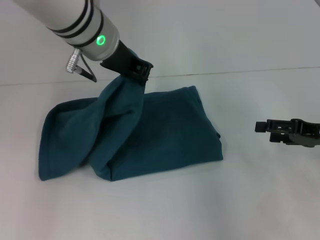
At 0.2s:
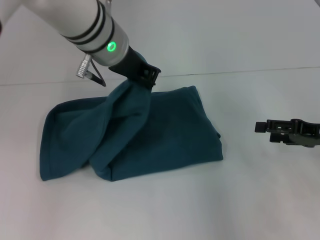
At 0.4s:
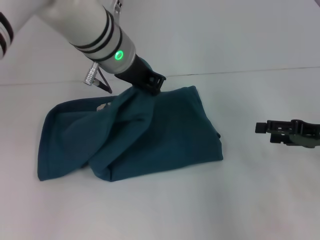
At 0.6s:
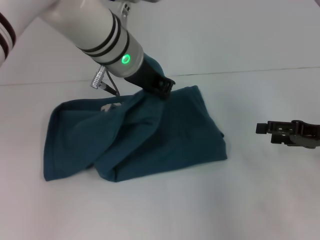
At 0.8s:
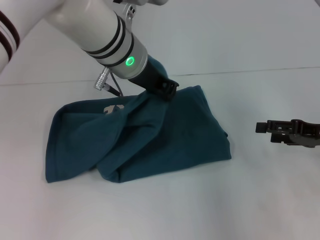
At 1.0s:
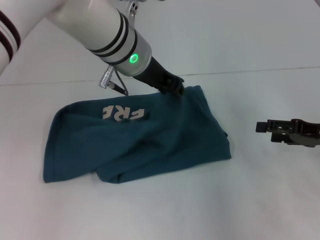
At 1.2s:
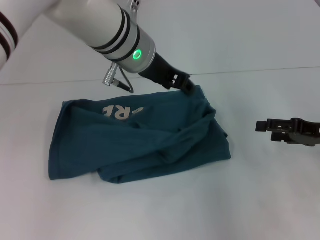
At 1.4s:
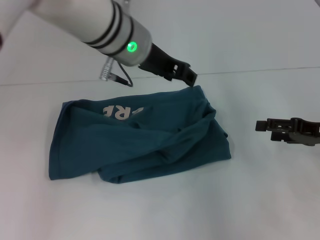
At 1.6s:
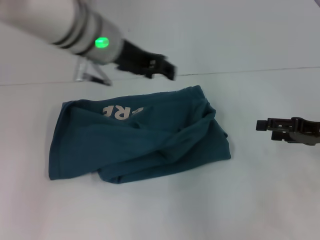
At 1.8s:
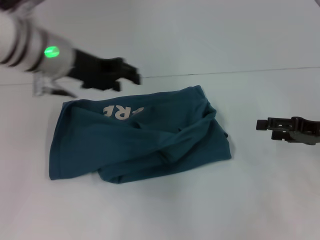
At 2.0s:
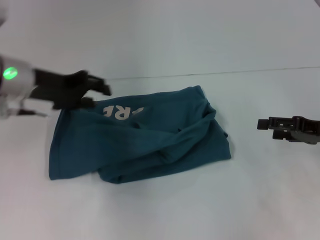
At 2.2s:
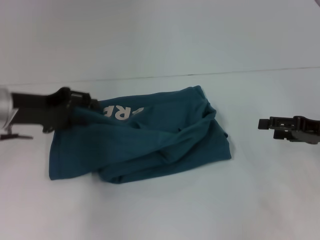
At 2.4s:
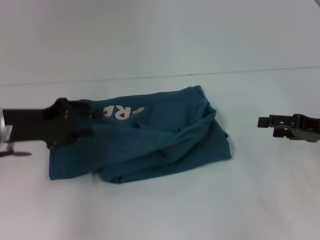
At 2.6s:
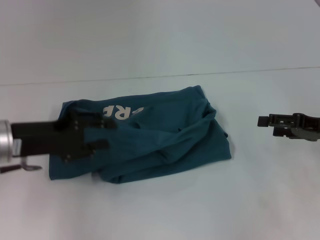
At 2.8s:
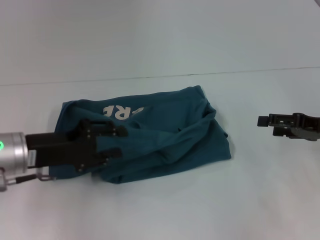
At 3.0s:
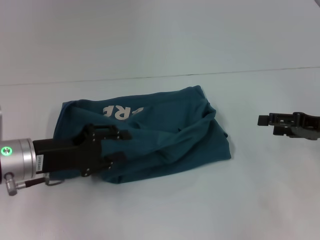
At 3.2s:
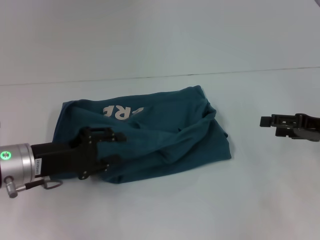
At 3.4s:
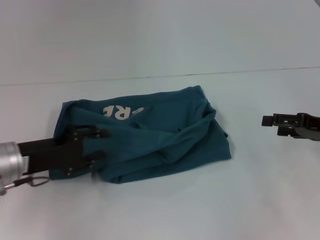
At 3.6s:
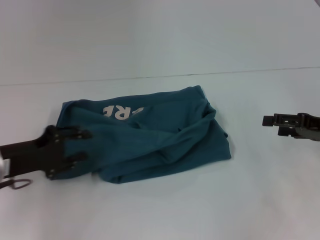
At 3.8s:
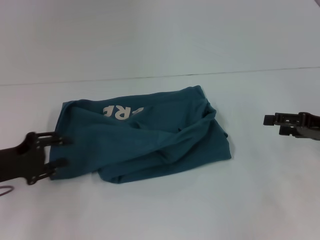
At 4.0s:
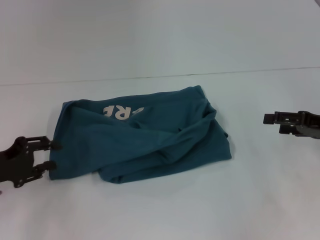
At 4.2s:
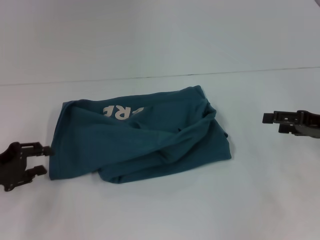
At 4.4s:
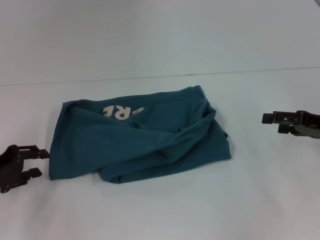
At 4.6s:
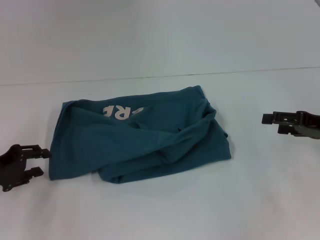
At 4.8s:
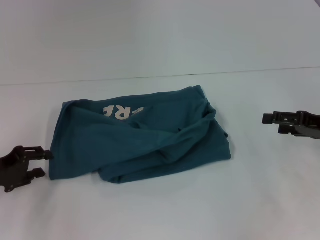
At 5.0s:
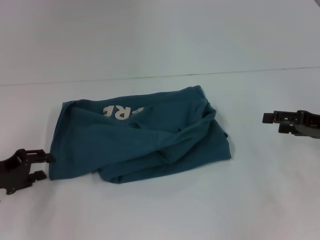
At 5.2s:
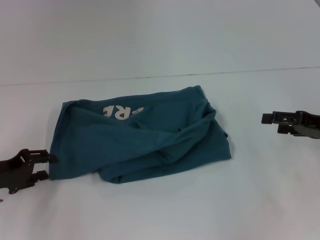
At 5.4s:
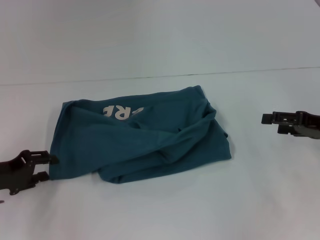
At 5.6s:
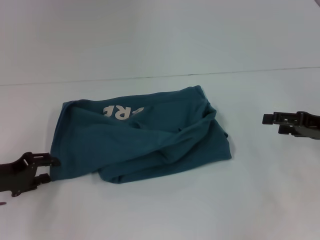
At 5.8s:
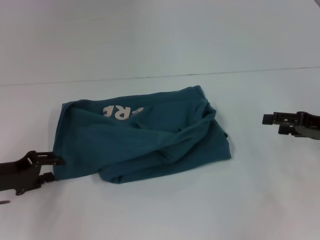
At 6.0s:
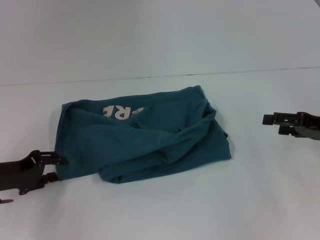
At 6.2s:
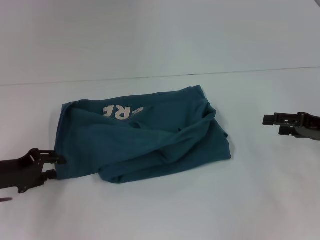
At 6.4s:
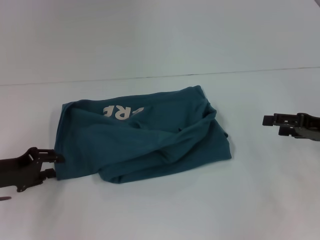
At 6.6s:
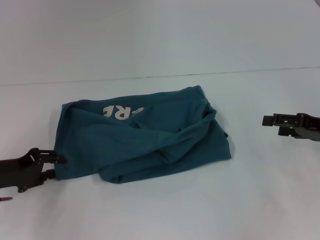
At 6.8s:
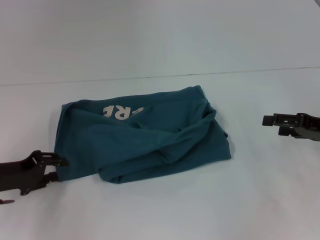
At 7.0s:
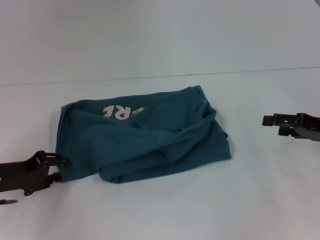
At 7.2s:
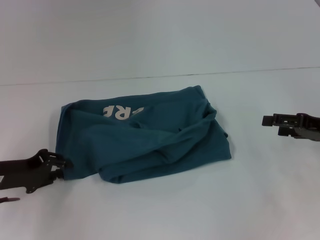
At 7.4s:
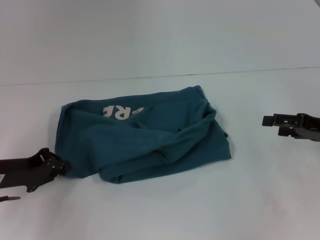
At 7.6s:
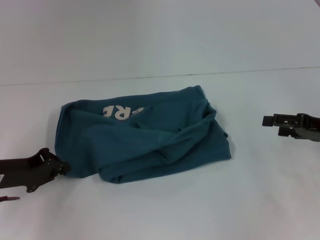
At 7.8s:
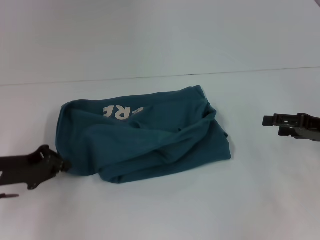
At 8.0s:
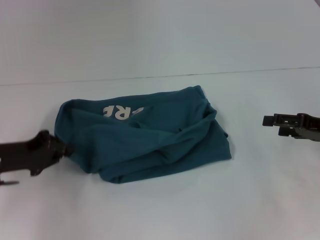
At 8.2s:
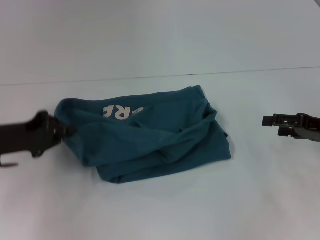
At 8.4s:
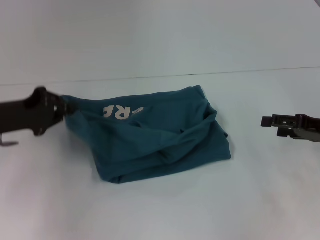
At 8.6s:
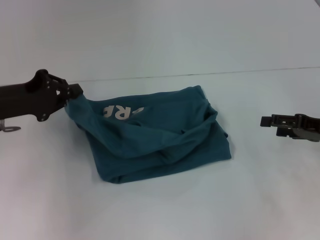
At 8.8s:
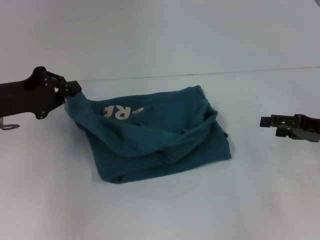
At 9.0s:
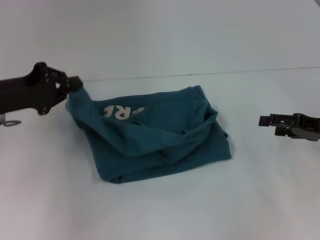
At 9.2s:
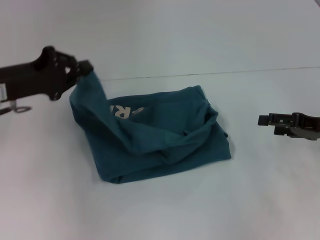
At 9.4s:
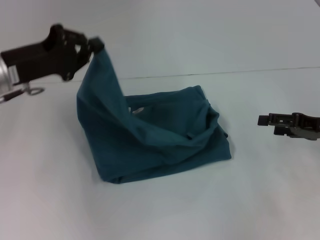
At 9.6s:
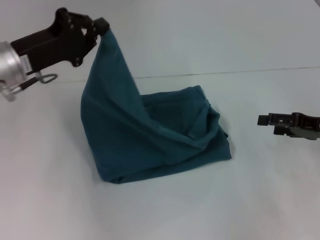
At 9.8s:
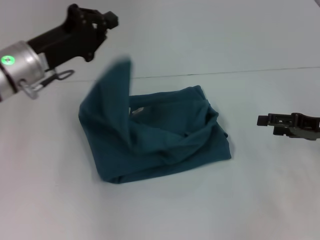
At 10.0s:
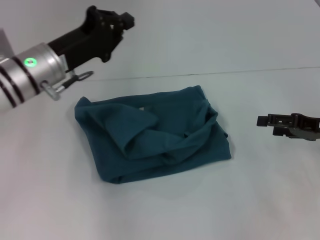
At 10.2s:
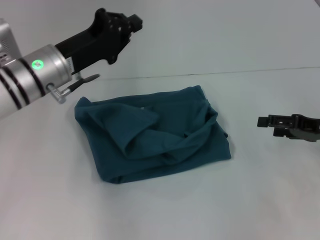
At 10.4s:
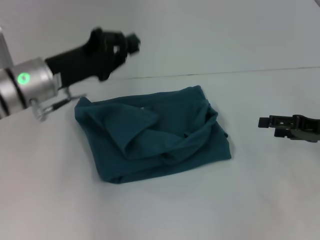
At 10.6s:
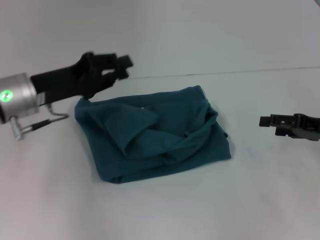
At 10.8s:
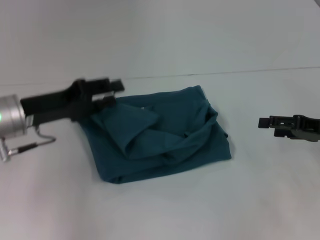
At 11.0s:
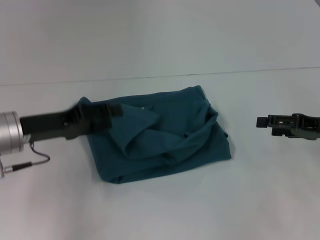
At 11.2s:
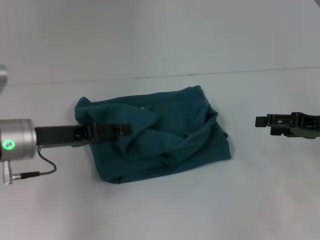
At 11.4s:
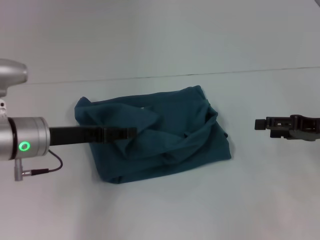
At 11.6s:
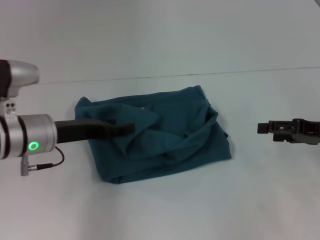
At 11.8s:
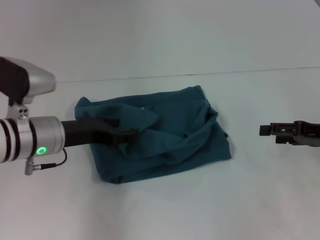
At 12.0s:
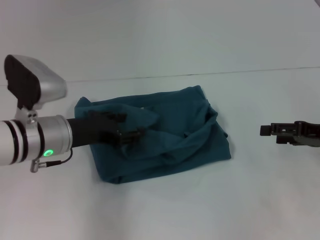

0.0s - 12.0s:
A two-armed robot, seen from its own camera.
0.0s - 1.6s: The left gripper opens its fingers.
1.6s - 3.0s: The left gripper heads downward, to the left and backward, covering some 20 cm.
3.0s - 4.4s: The left gripper heads to the left, covering approximately 10 cm.
4.4s - 6.0s: There are only small adjustments of the grippers.
6.0s - 7.6s: The left gripper closes up.
7.6s - 9.0s: The left gripper goes roughly 10 cm upward.
9.0s - 10.4s: The left gripper goes roughly 10 cm to the right.
10.4s - 12.0s: The left gripper changes place by roughly 5 cm, and opens.

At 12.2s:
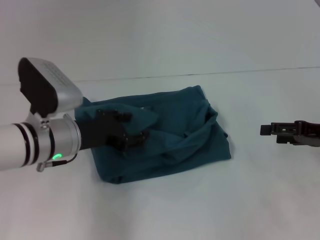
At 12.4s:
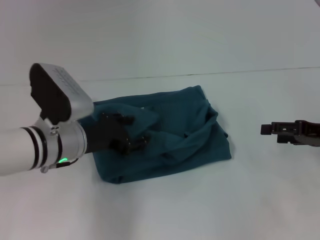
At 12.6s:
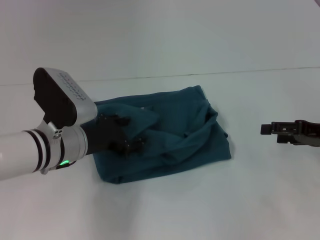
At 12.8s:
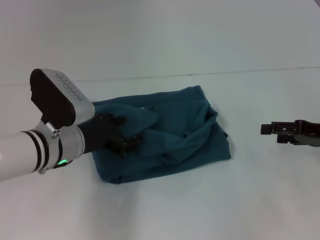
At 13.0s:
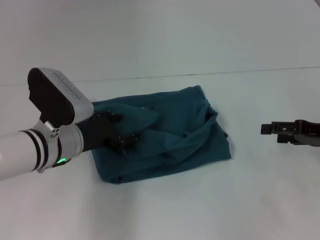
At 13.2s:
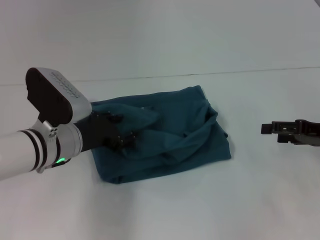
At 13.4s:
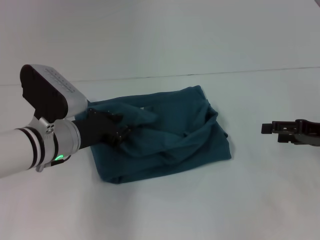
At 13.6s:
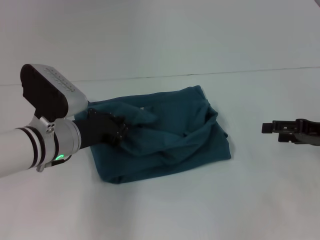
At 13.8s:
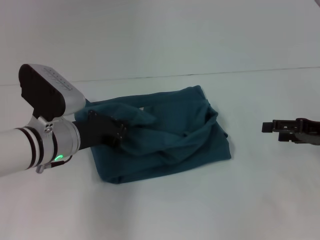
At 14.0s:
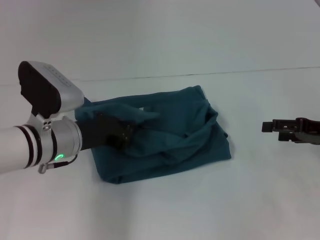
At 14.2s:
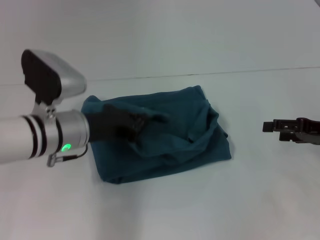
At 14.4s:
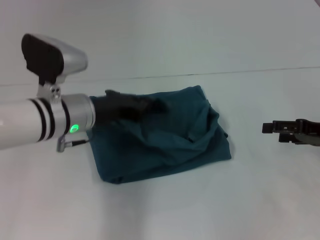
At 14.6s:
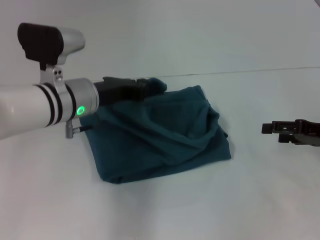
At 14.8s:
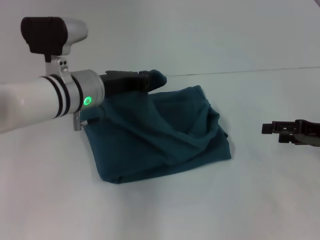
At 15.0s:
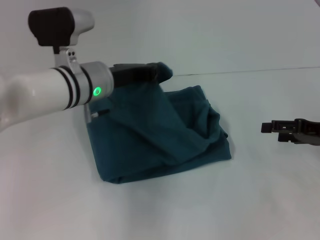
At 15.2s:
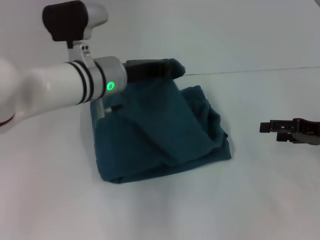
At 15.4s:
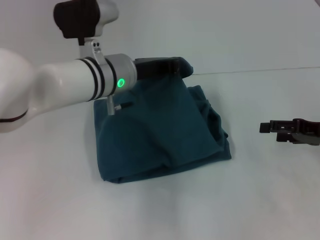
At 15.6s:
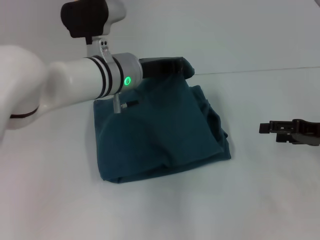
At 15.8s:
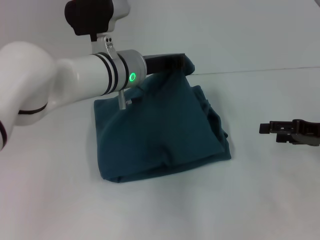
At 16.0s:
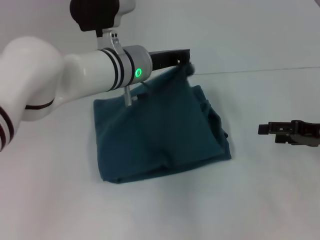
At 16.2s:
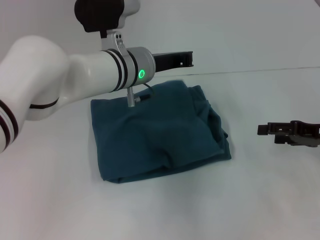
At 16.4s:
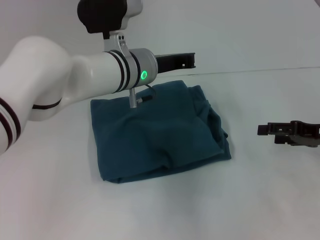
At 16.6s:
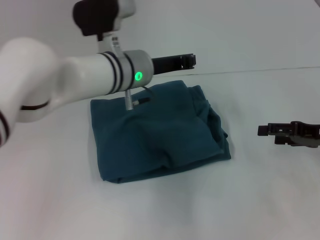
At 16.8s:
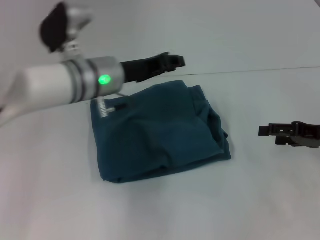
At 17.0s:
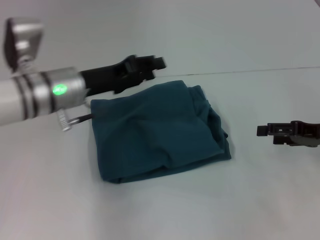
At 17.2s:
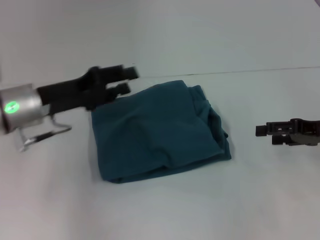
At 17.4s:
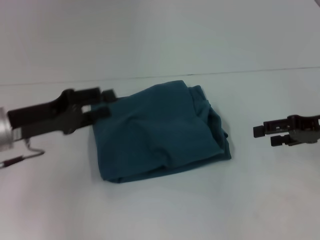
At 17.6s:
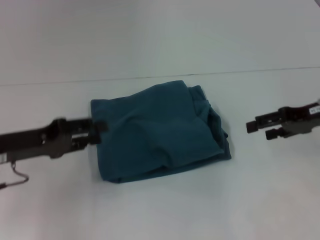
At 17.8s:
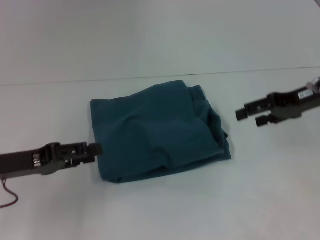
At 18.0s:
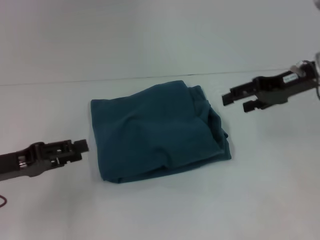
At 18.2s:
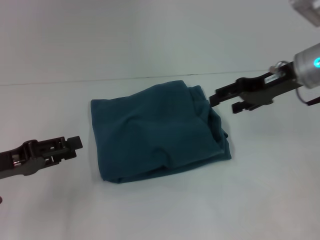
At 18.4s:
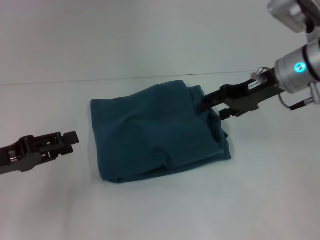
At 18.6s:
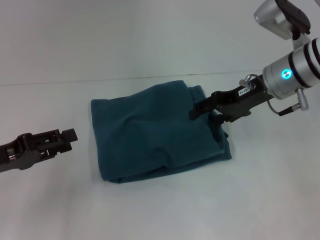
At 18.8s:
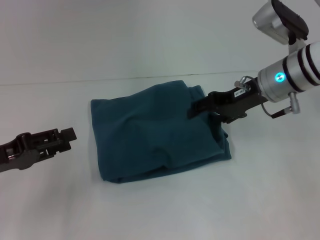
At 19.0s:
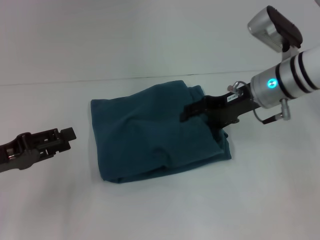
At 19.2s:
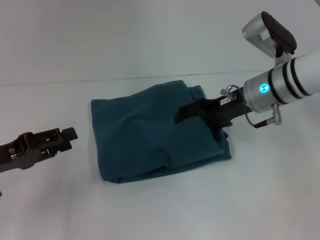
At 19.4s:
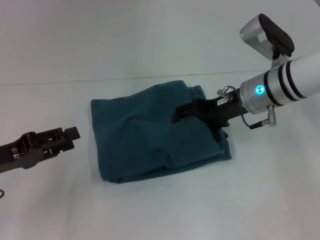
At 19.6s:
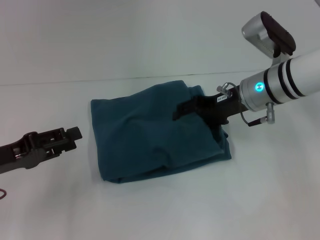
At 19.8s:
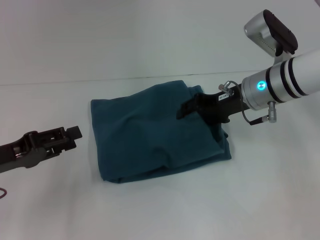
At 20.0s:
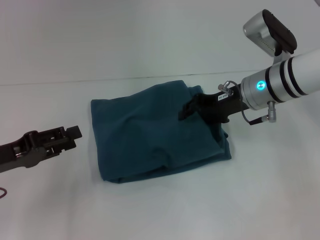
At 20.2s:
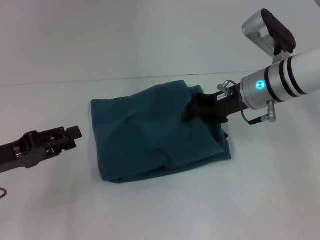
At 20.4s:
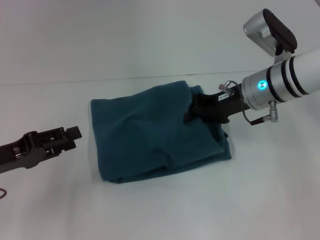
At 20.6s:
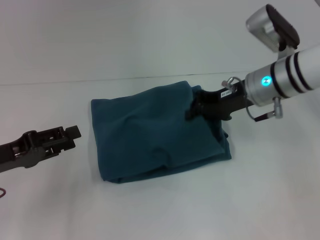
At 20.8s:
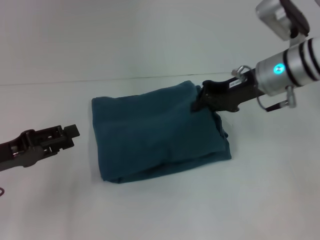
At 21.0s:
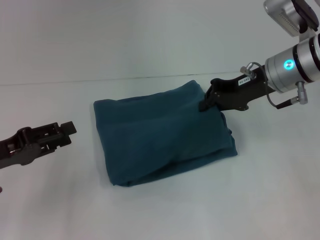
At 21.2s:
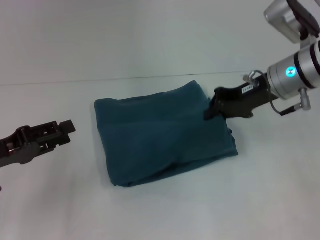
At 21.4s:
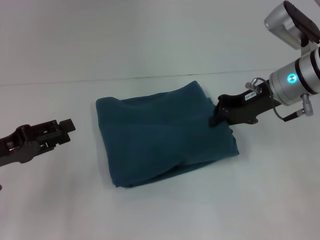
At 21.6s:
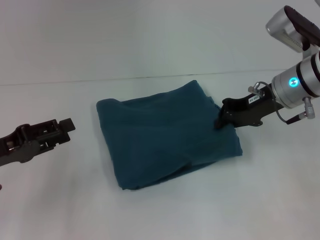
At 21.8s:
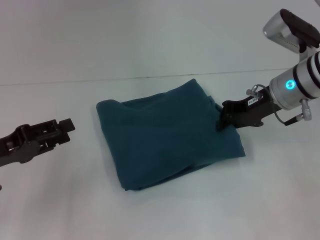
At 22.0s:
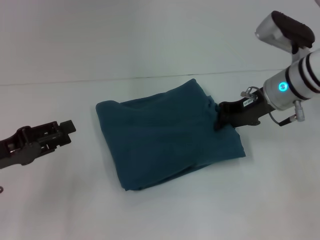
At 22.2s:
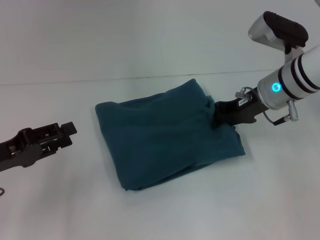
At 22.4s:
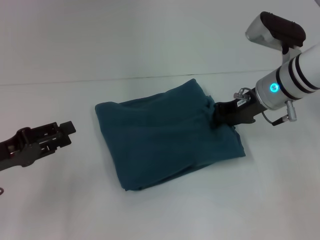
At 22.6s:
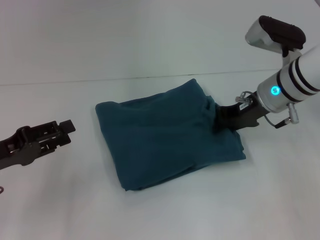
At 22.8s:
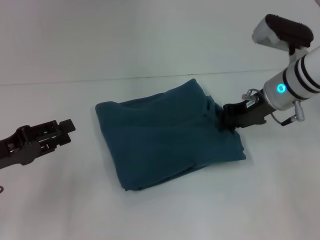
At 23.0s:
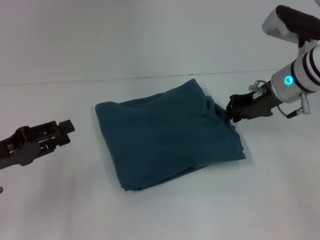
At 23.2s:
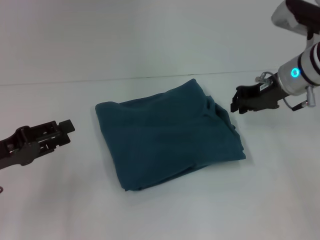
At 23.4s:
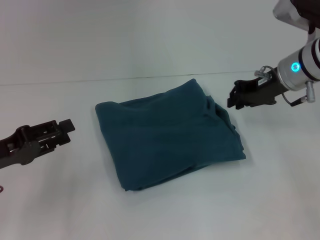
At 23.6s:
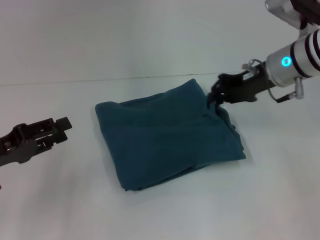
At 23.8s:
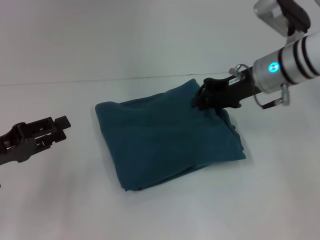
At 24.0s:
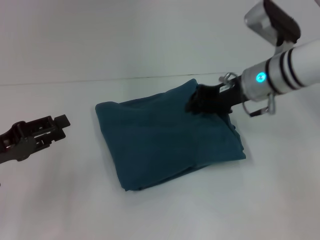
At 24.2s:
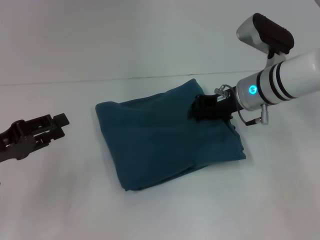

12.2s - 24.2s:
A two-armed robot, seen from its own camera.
Step, 12.2s - 16.2s: Fold the clothes to the left.
12.2s - 13.8s: The left gripper closes its fingers.
13.8s - 15.2s: The left gripper shifts approximately 10 cm to the right, upward and forward.
15.2s - 16.6s: The grippers make only small movements.
16.6s - 18.2s: The right gripper moves to the left, upward and forward, approximately 15 cm. The left gripper shifts about 30 cm to the left and backward, and opens its fingers.
18.2s - 19.8s: The right gripper shifts about 5 cm to the left.
19.8s - 21.2s: The right gripper closes up.
21.2s - 24.2s: The grippers stay close to where they were, moving slightly.
